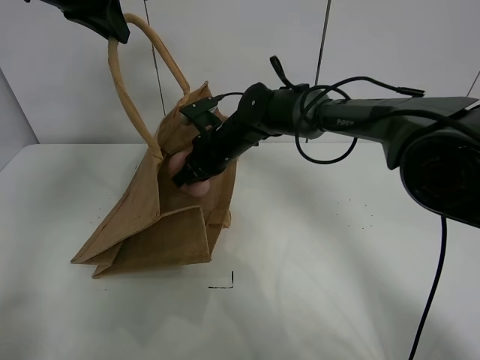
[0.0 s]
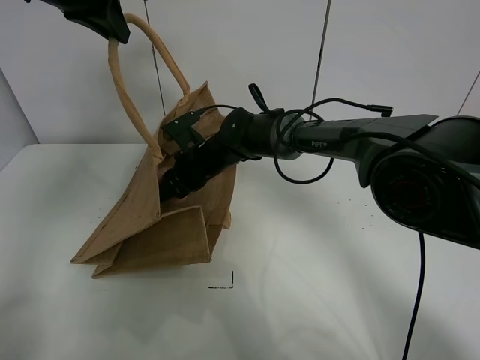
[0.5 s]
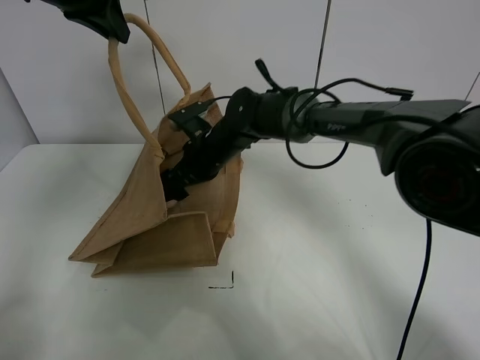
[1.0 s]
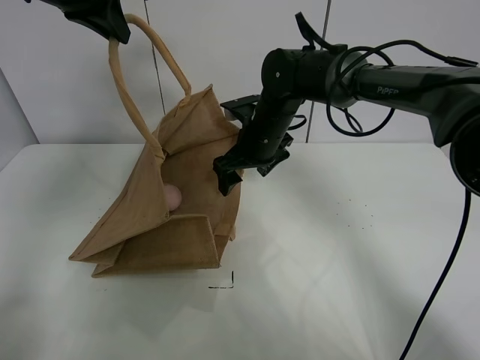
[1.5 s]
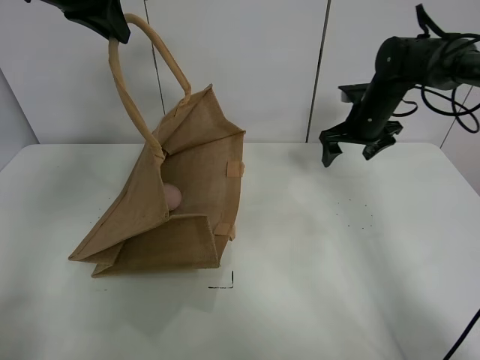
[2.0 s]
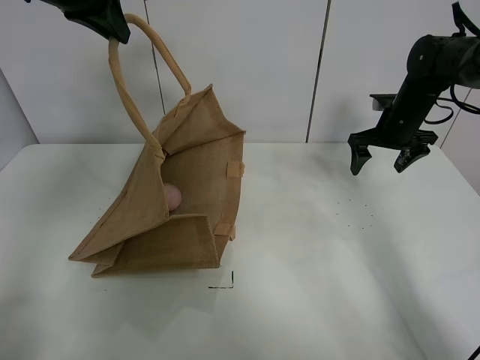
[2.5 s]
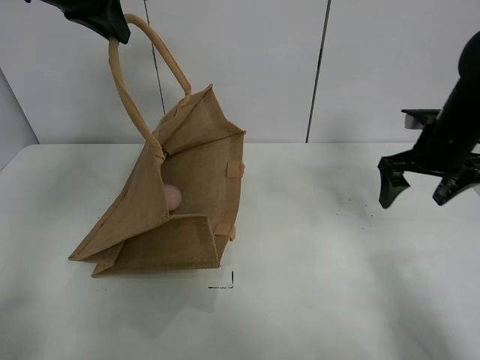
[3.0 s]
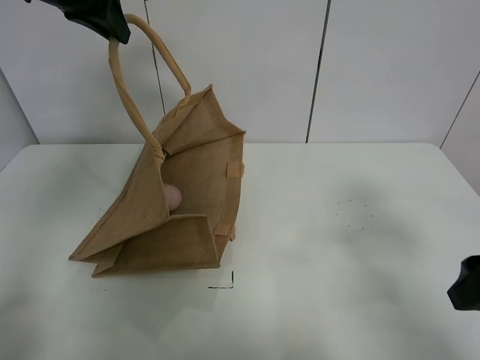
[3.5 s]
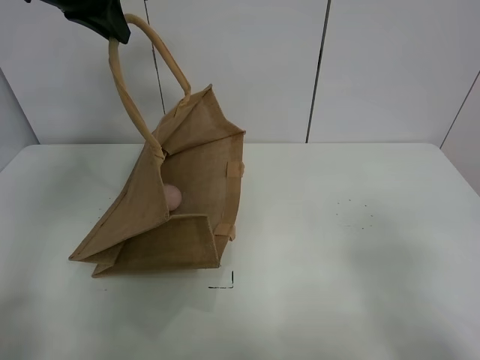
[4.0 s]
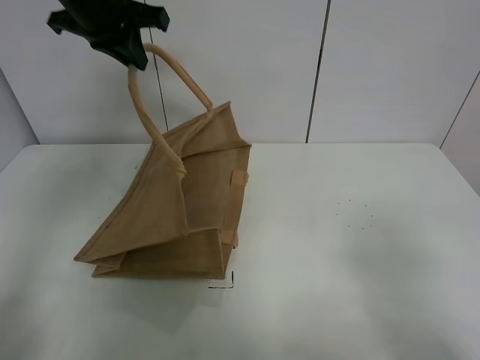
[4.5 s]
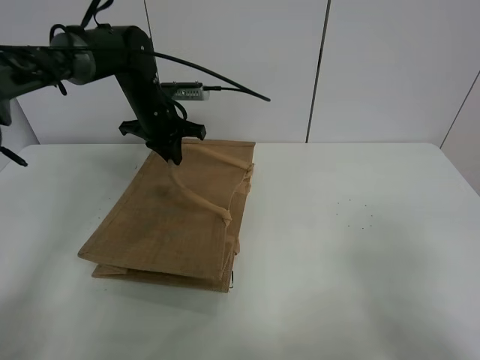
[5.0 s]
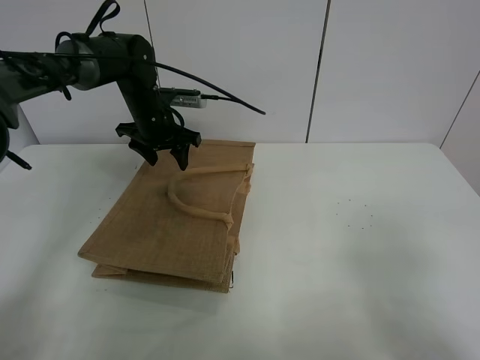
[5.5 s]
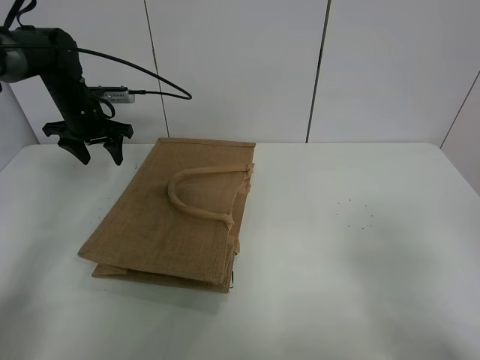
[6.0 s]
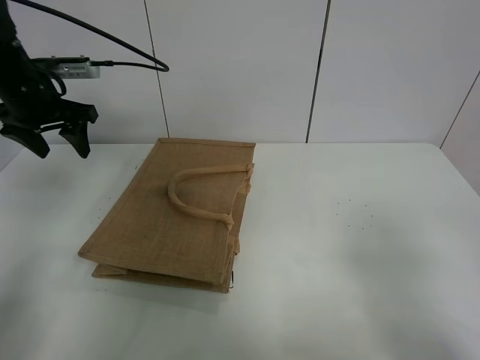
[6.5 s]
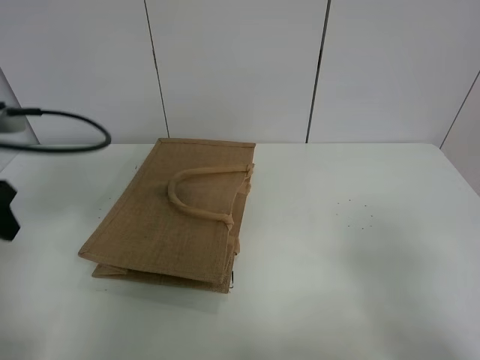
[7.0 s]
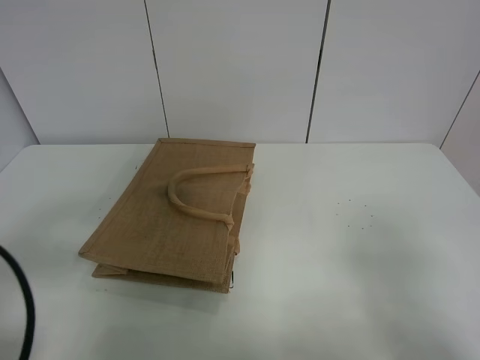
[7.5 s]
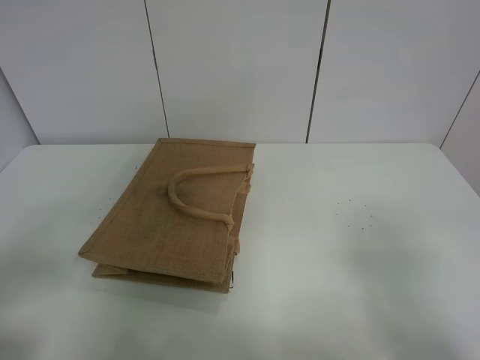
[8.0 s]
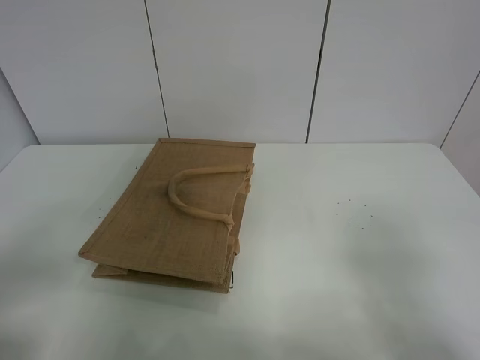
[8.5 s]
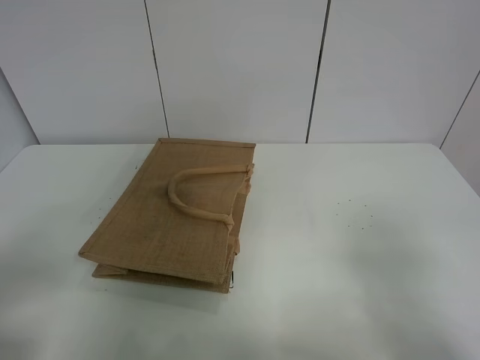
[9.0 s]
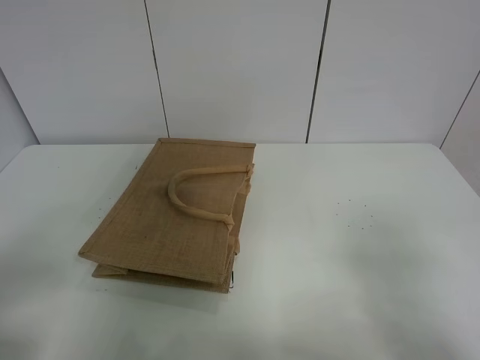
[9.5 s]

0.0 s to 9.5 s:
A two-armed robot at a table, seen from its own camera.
Task of the whole recording: open the brown linen bag and put the peach in the bag.
Step, 0.0 to 1.5 s: Place the peach in the handbag with right gripper.
Step, 2.0 to 5.5 s: Put down the handbag with left grippe.
0.0 to 2.0 s: The right gripper travels to the right by roughly 25 cm, and opens its fingers.
2.0 to 4.0 s: The right gripper goes about 50 cm backward.
4.0 to 5.5 s: The left gripper moves downward and forward, roughly 25 cm, and opens up.
5.5 to 7.5 s: The left gripper moves backward, some 40 cm.
7.5 to 9.5 s: The left gripper moves backward, roughly 5 cm.
